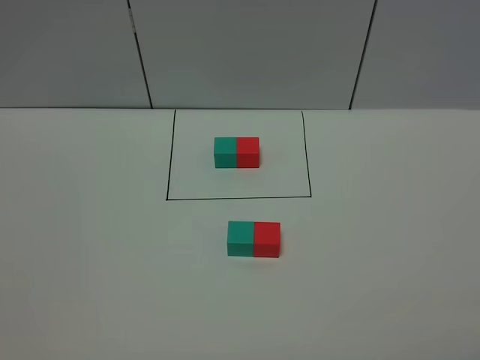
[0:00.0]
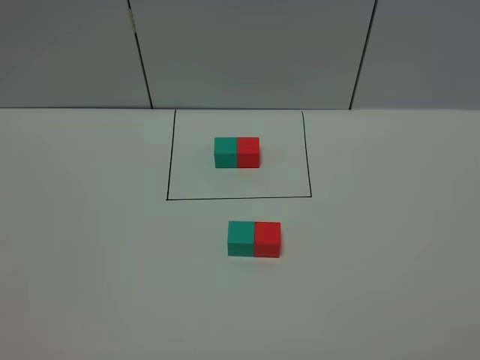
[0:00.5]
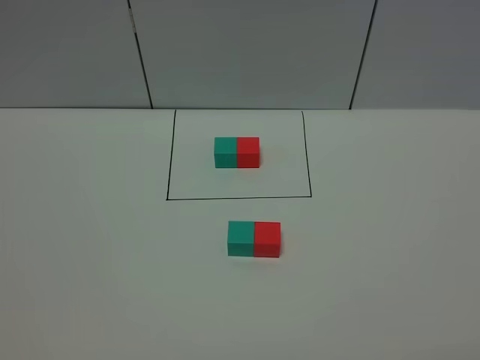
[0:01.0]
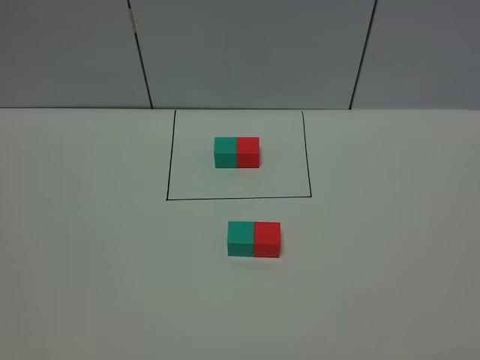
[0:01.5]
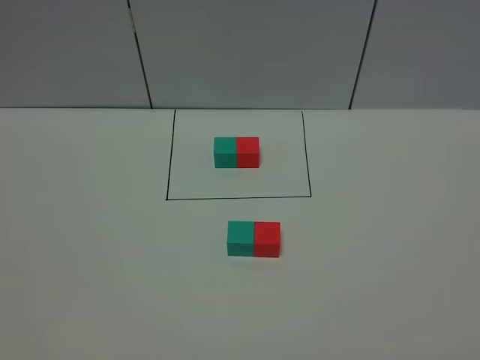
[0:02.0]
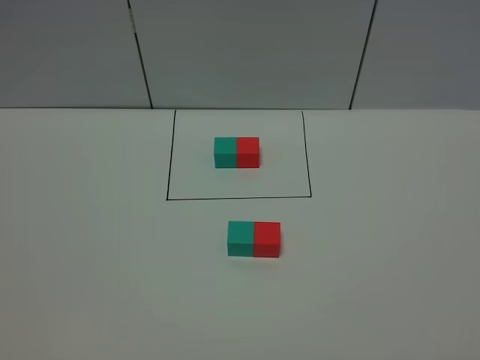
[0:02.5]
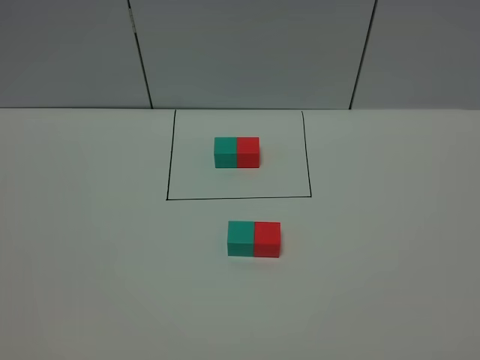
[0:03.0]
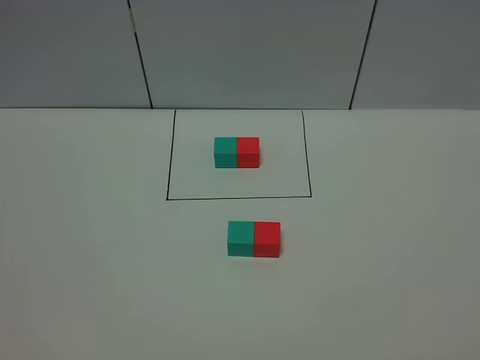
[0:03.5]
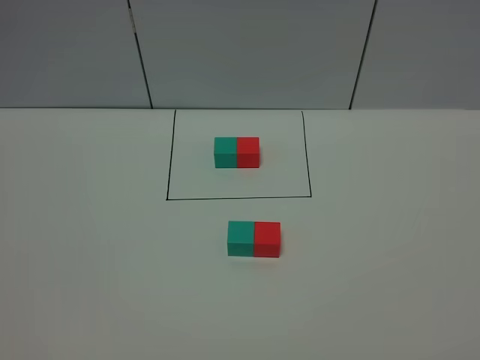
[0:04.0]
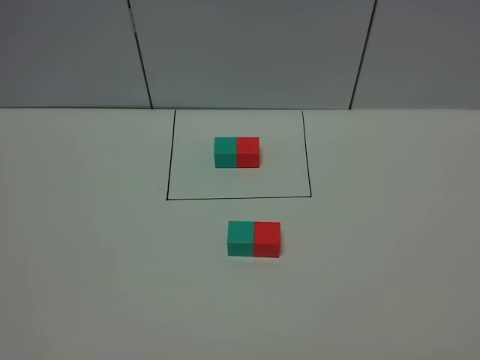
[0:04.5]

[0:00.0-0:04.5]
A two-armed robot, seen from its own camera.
Task of the whole recording: According to the building block template in front, assemble the scattered blocks together.
2.0 to 4.5 s: The two grippers keep their place.

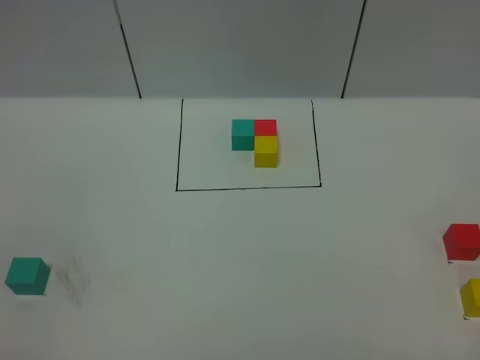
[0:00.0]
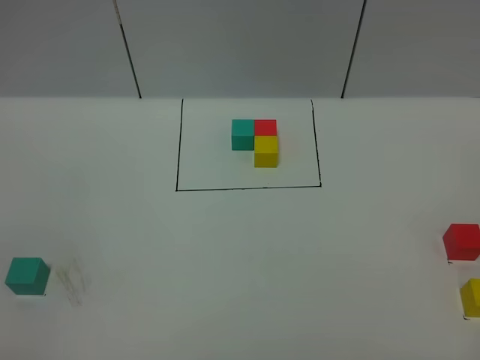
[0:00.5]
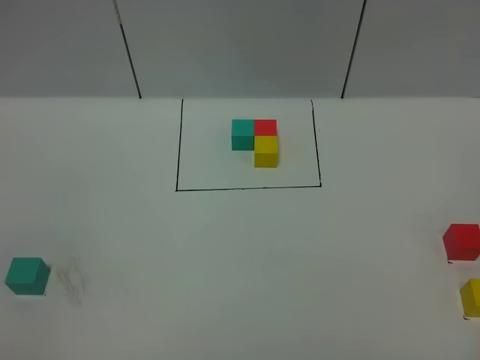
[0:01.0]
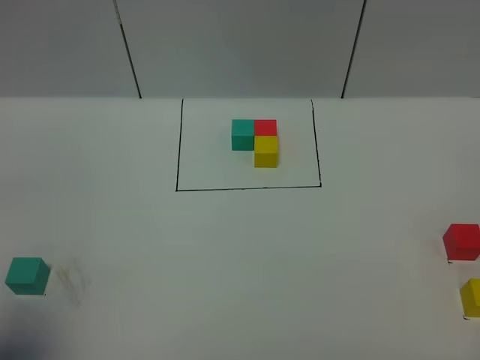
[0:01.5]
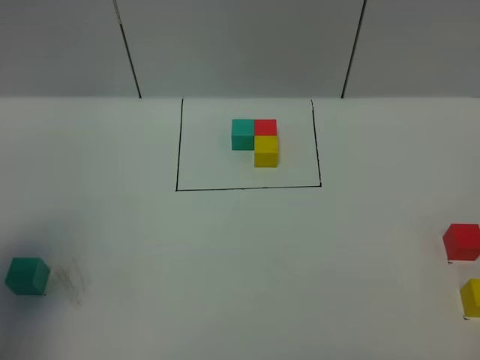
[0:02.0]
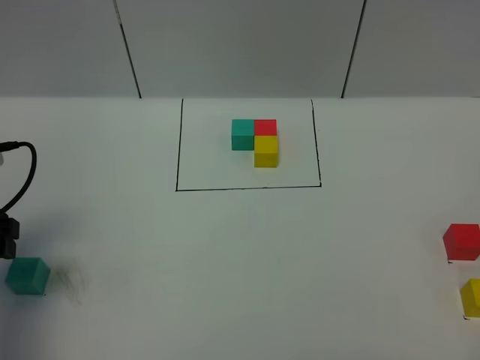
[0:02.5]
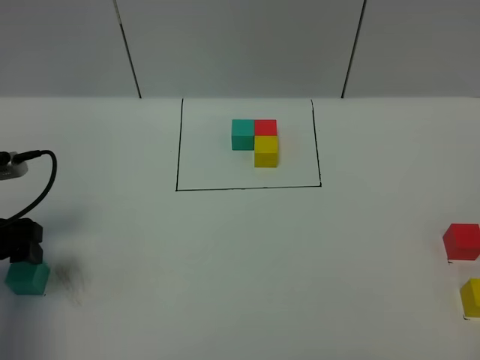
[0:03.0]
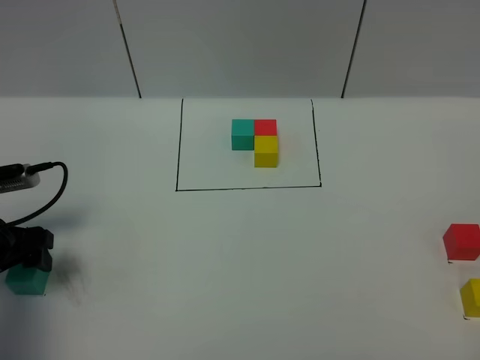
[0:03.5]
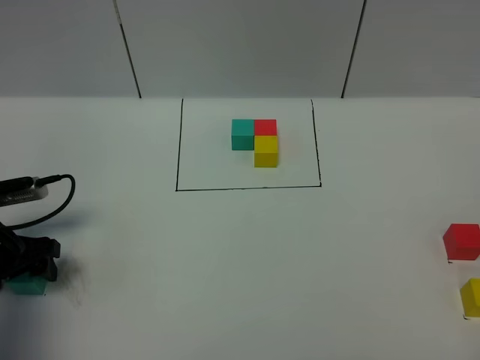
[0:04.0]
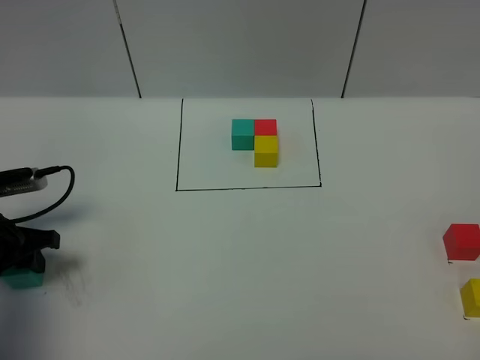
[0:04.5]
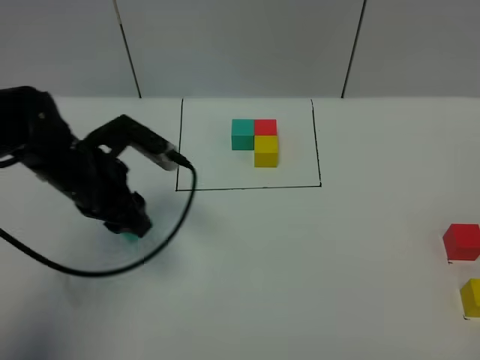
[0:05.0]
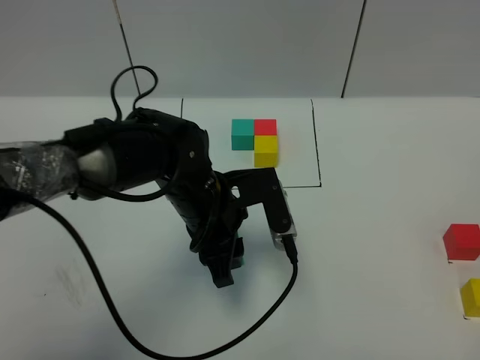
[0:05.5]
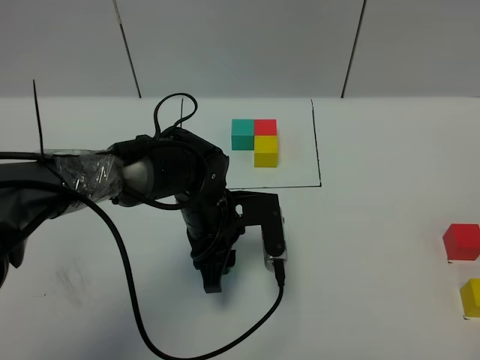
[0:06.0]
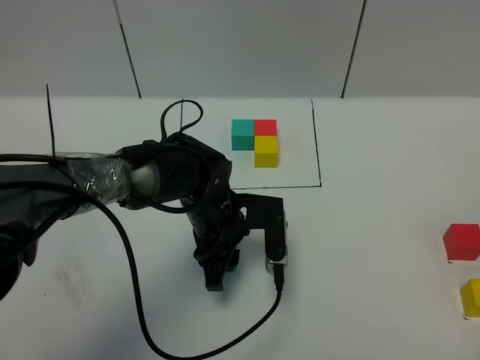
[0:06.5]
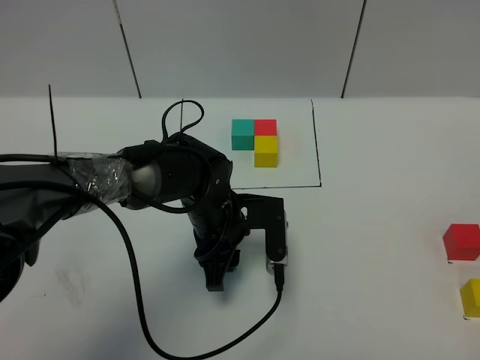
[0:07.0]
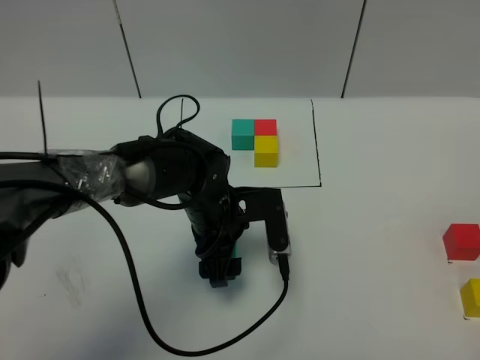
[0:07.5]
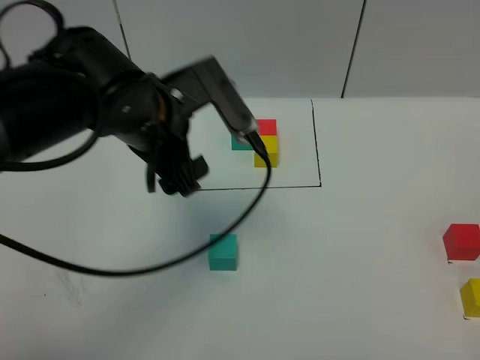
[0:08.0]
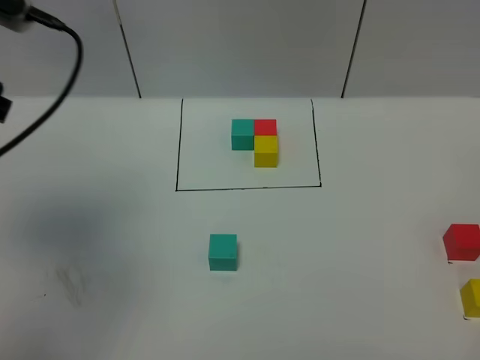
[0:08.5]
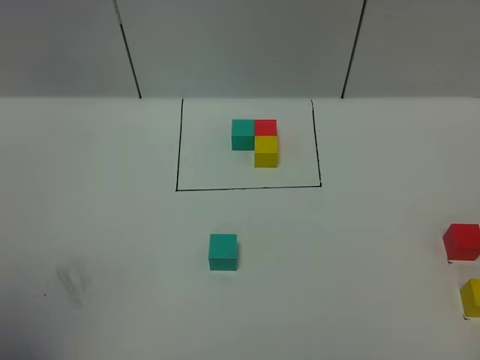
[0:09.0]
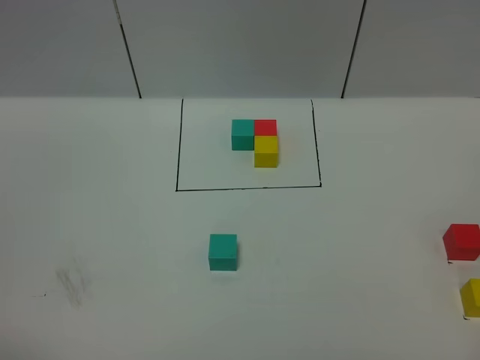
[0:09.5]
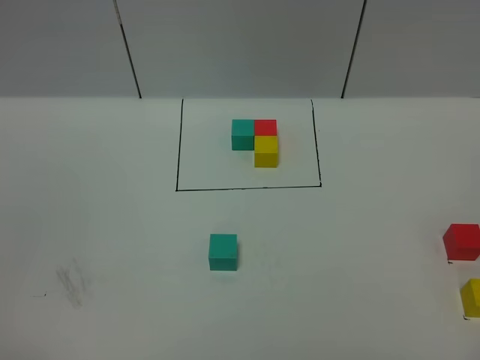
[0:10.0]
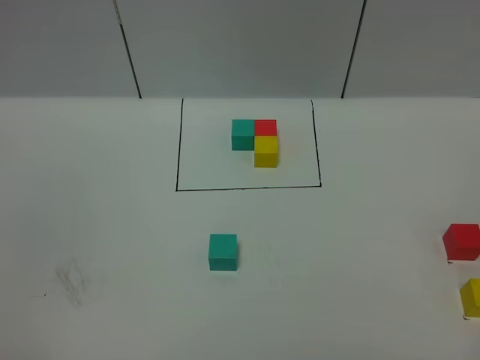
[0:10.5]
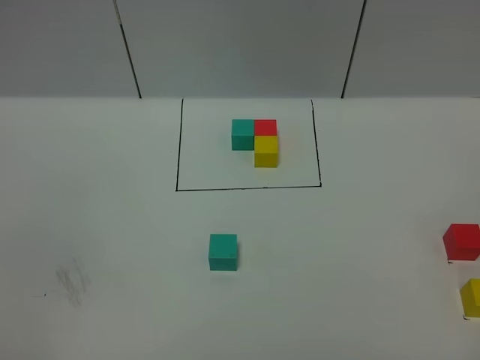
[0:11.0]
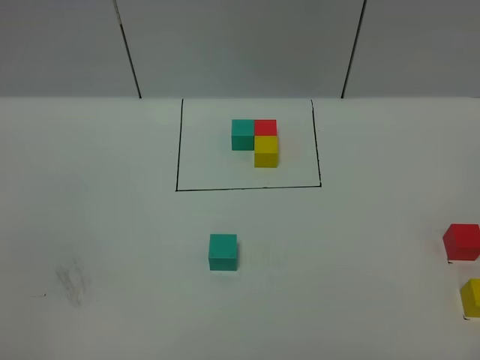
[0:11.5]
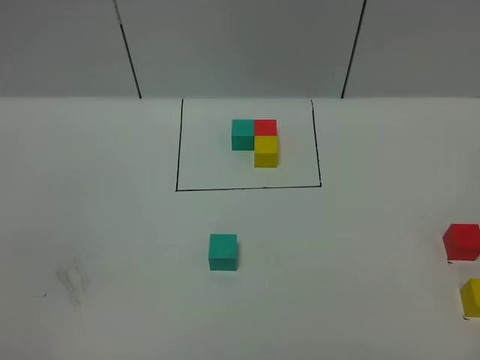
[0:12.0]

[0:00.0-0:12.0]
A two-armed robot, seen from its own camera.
Task of the whole recording: According to the building block template in front, assemble the scattered blocks together.
Step, 2.5 to 7.5 s: Put the green cube in the center of the table.
0.0 to 2.0 s: The left gripper travels forward by approximately 25 cm.
2.0 to 4.0 s: The left gripper moves downward and forward, about 15 cm.
4.0 to 6.0 s: The left gripper goes roughly 30 cm to the right, and closes up.
6.0 to 8.0 s: The left gripper shifts roughly 15 cm upward, and opens.
8.0 to 10.0 s: The left gripper moves backward and to the left, some 40 cm.

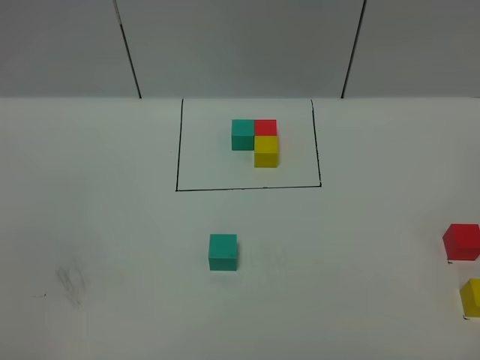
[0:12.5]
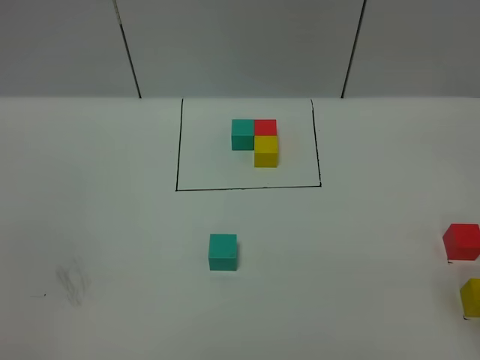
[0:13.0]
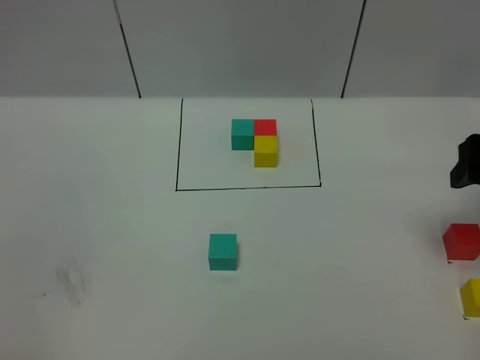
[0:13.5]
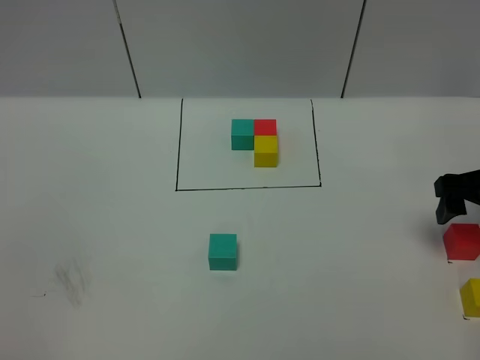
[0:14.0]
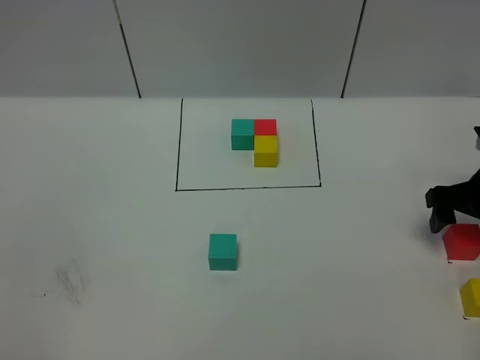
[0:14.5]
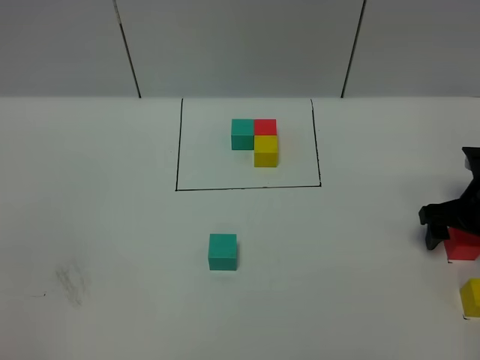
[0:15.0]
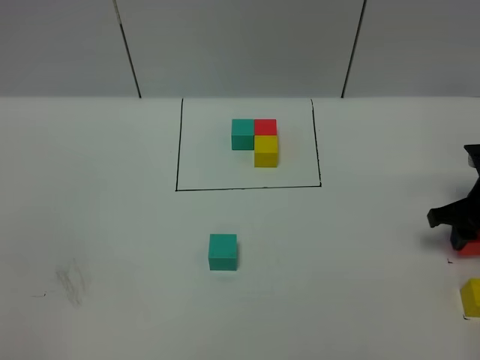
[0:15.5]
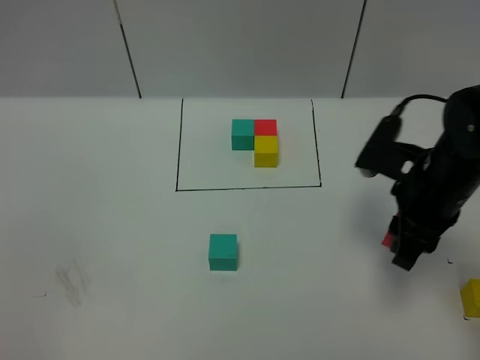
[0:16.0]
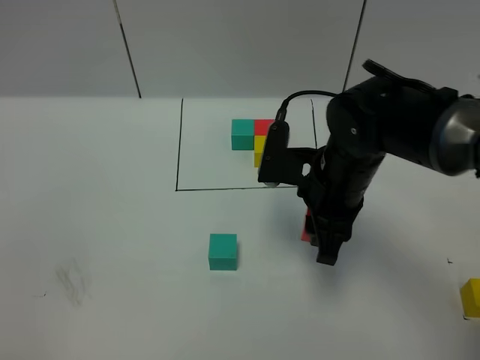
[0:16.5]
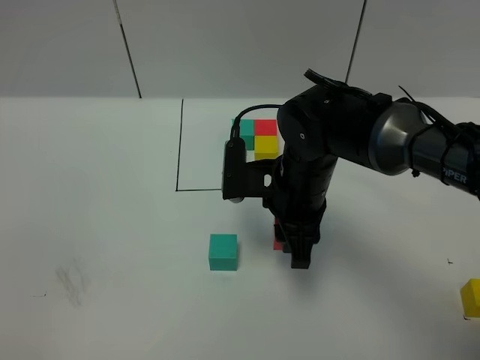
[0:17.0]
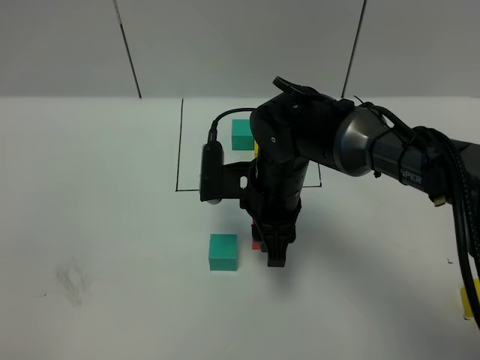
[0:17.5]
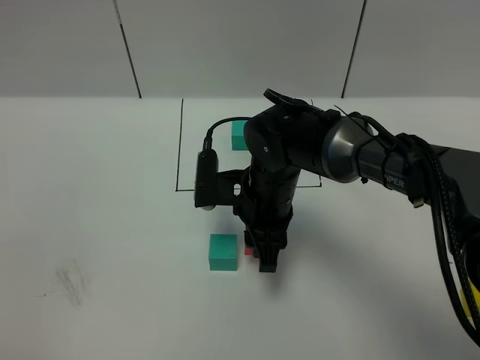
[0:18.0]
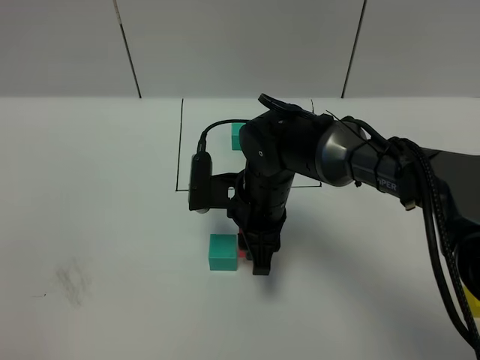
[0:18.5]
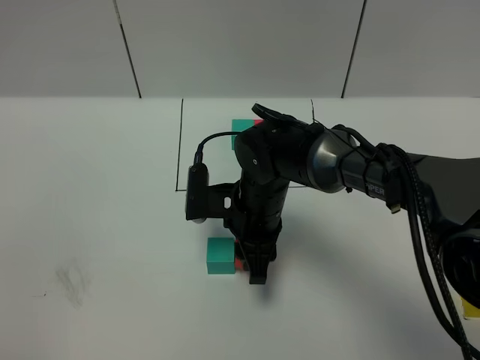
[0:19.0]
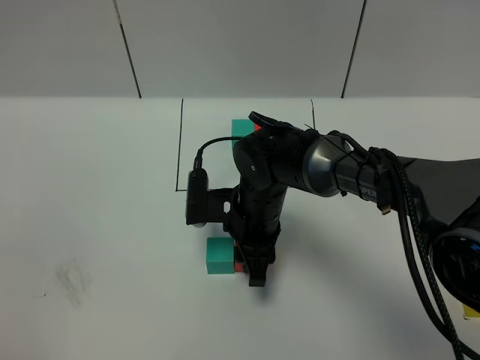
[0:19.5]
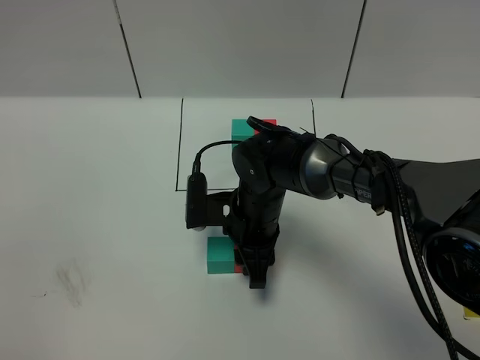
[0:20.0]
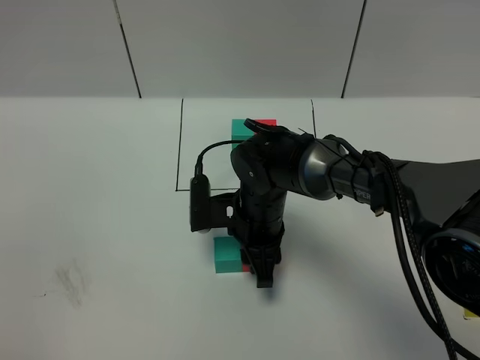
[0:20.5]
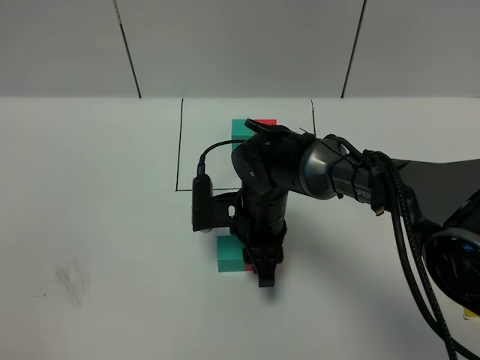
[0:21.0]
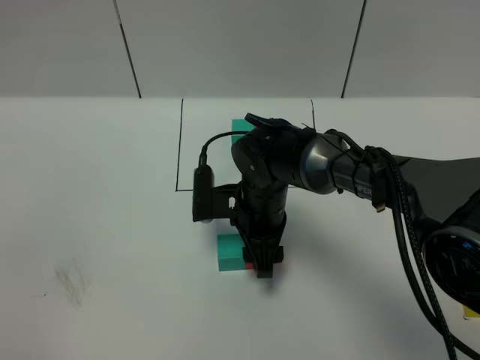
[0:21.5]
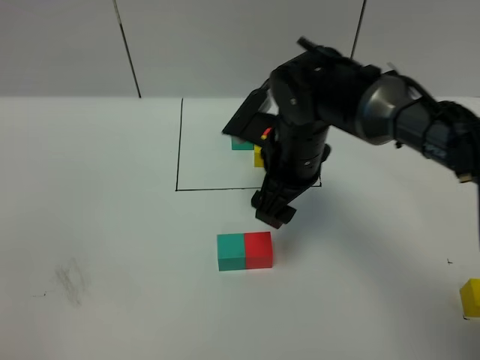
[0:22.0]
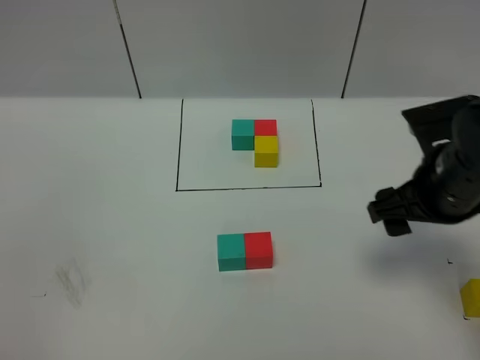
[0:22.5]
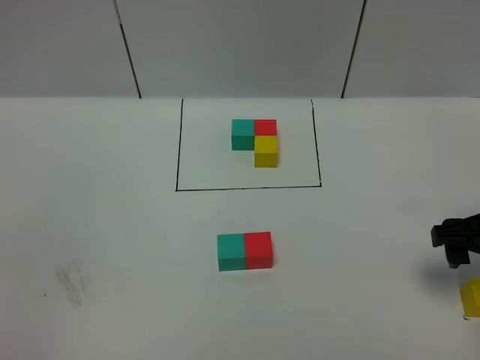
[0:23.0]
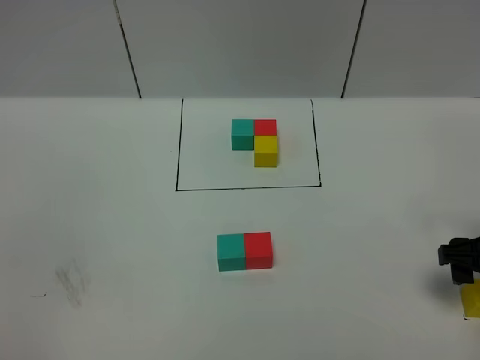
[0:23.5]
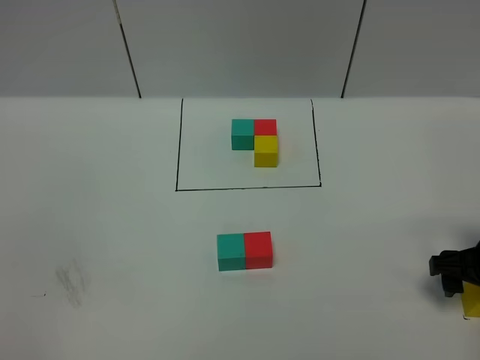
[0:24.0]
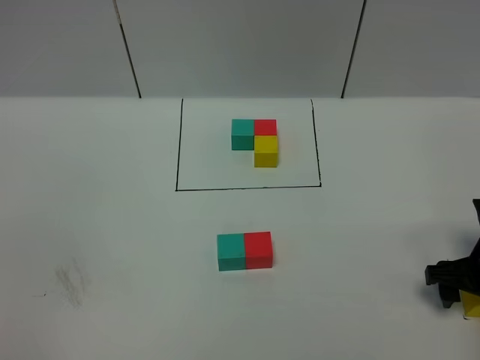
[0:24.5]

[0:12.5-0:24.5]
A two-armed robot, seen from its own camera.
Task of the whole recording: According to the building block template in front, assemble the scattered blocks together.
Step, 12.5 to 22.0 s: Put the red cube on the right of the green cube.
12.5 to 14.5 s: The right gripper shifts roughly 35 cm forward.
14.5 to 16.5 s: The right gripper shifts approximately 20 cm to the left, and closes up.
16.5 to 18.5 s: The right gripper shifts approximately 10 cm to the left and downward.
18.5 to 20.5 s: The grippers stay close to where they were, moving slightly.
20.5 to 22.5 s: The right gripper shifts some 25 cm to the right and upward, and opens up.
22.5 to 24.5 s: The right gripper shifts roughly 15 cm downward and to the right.
